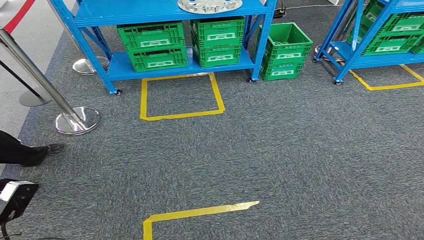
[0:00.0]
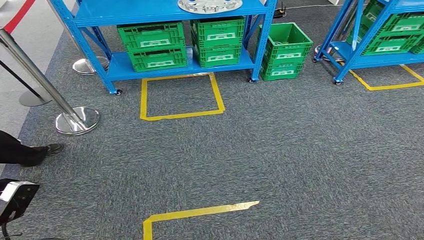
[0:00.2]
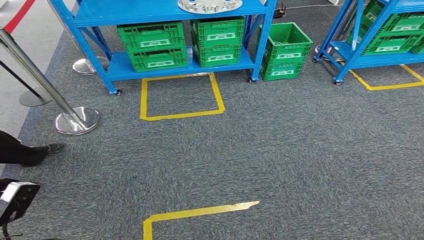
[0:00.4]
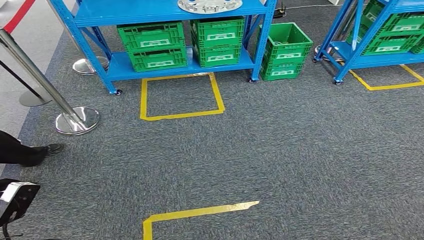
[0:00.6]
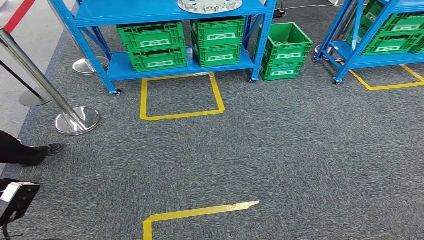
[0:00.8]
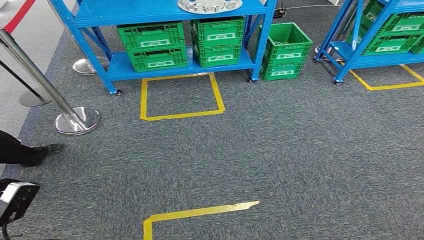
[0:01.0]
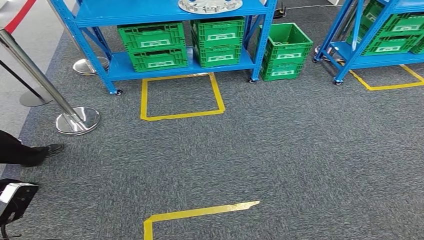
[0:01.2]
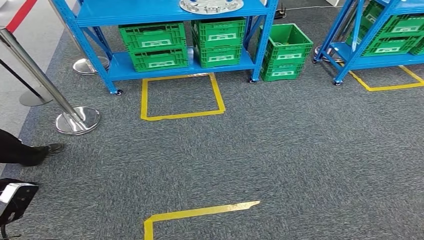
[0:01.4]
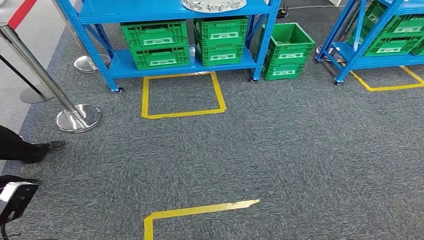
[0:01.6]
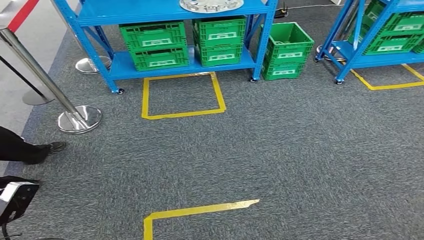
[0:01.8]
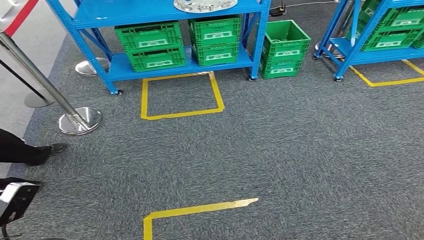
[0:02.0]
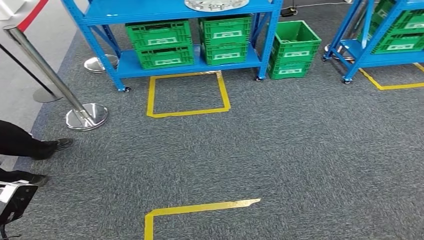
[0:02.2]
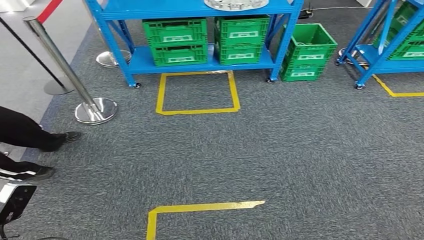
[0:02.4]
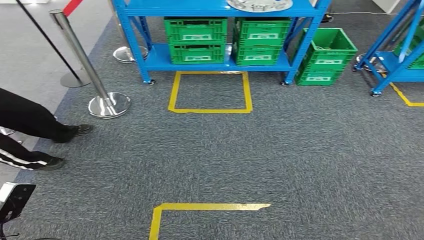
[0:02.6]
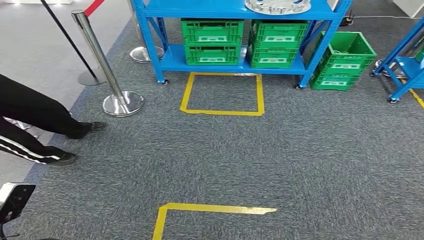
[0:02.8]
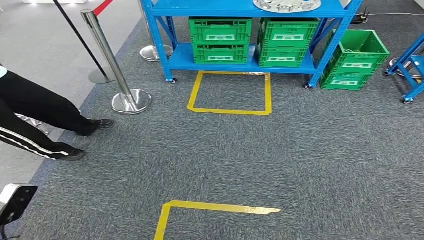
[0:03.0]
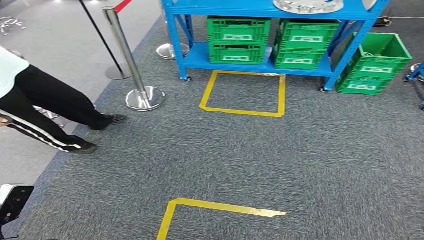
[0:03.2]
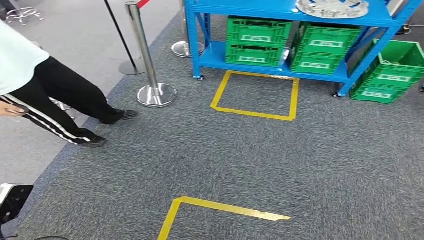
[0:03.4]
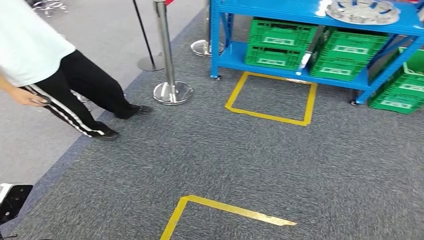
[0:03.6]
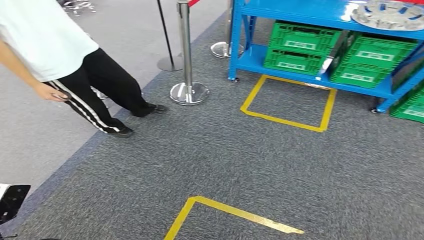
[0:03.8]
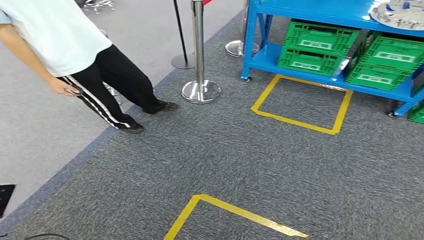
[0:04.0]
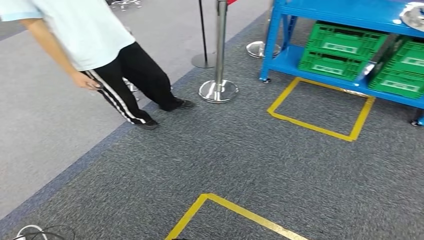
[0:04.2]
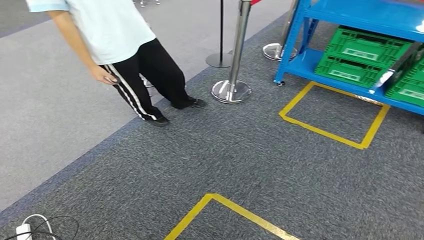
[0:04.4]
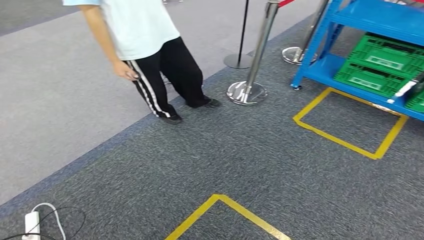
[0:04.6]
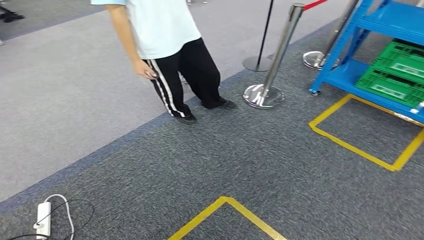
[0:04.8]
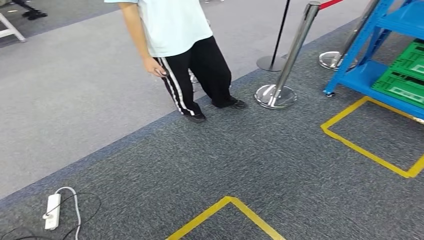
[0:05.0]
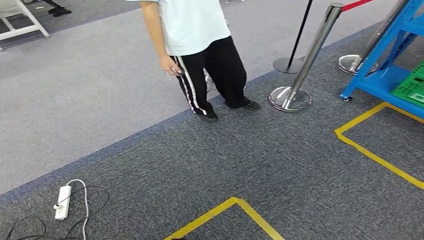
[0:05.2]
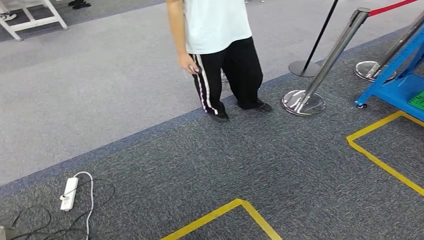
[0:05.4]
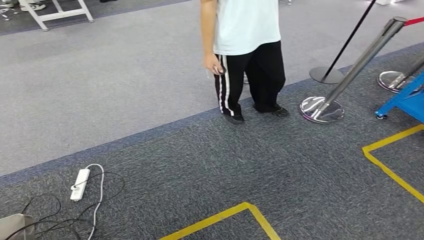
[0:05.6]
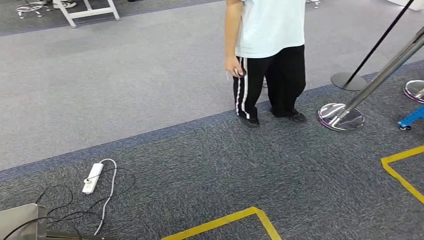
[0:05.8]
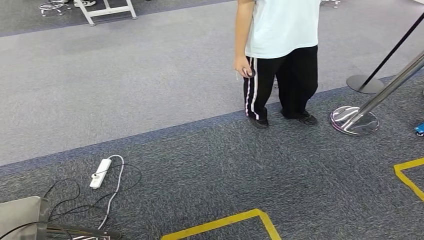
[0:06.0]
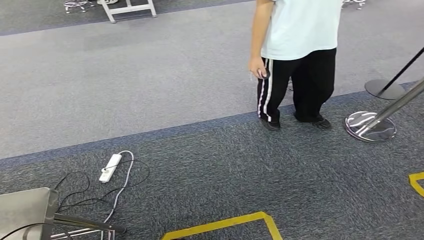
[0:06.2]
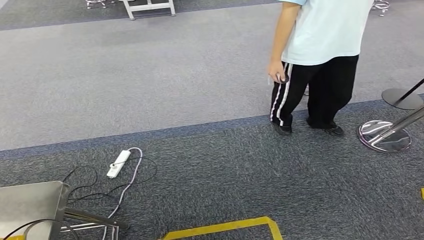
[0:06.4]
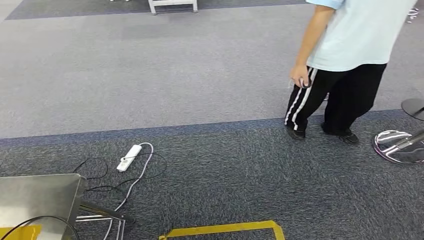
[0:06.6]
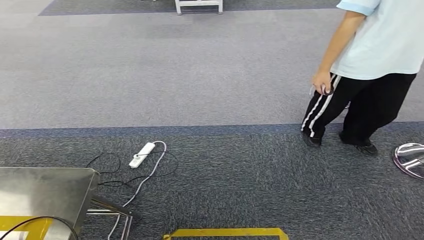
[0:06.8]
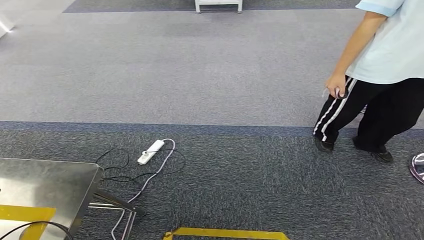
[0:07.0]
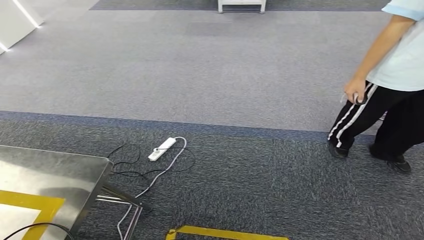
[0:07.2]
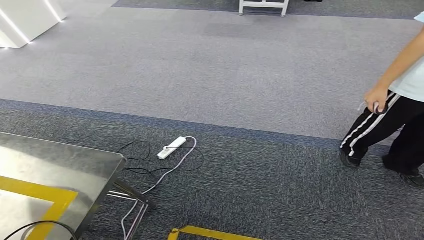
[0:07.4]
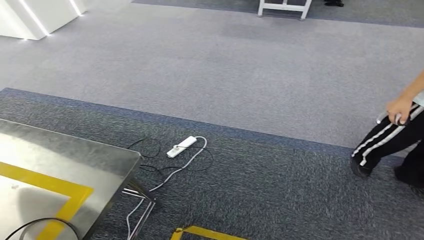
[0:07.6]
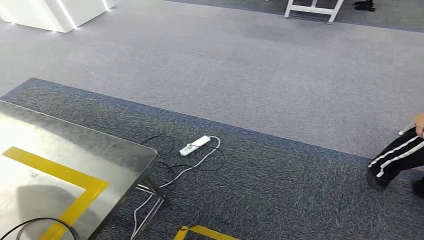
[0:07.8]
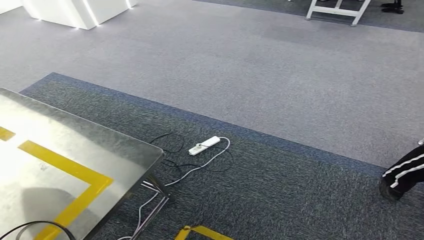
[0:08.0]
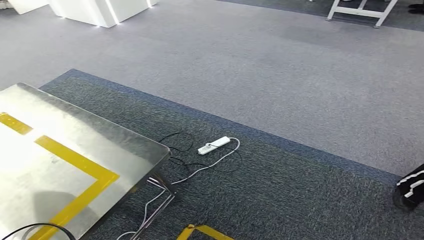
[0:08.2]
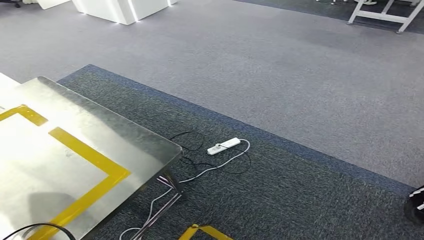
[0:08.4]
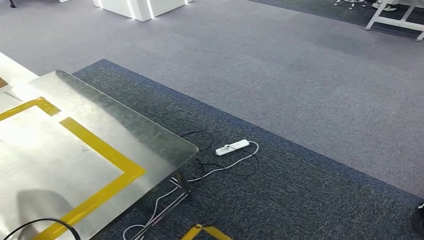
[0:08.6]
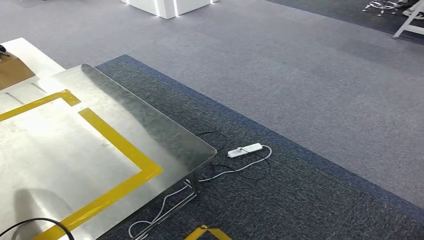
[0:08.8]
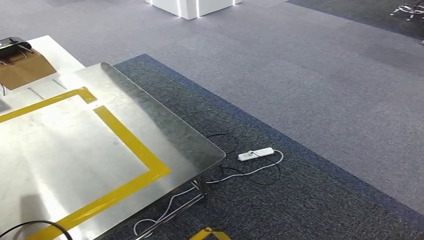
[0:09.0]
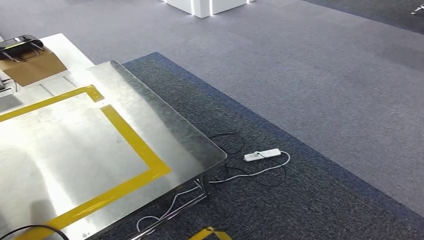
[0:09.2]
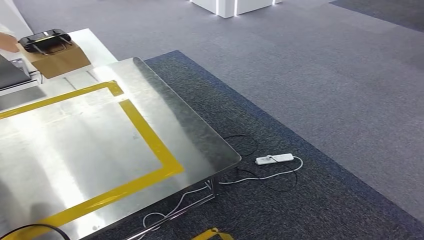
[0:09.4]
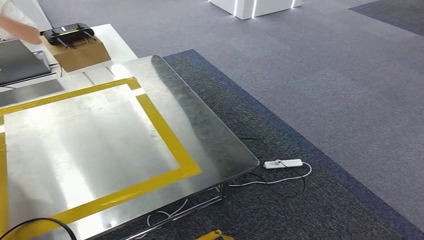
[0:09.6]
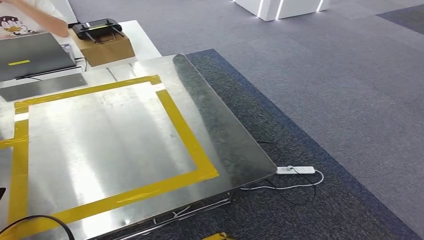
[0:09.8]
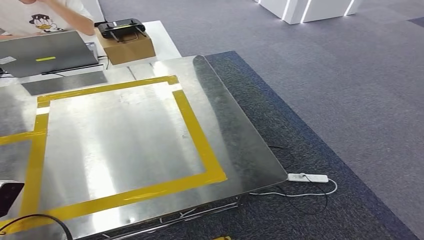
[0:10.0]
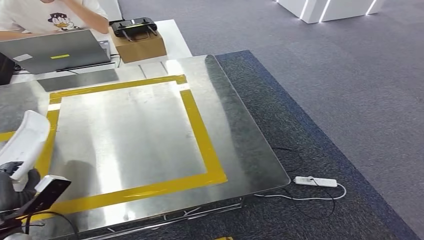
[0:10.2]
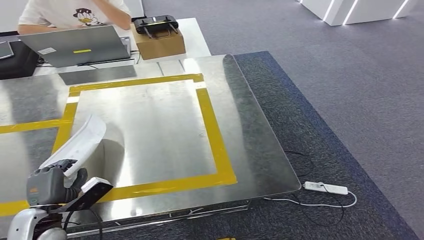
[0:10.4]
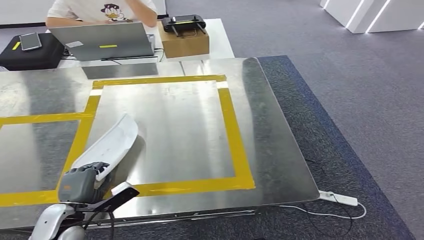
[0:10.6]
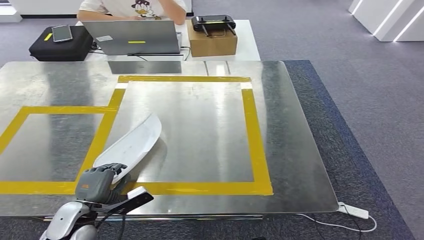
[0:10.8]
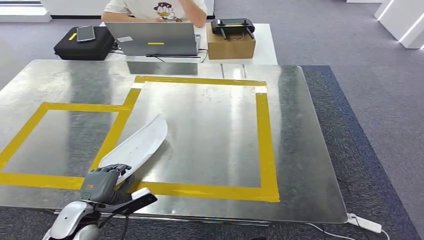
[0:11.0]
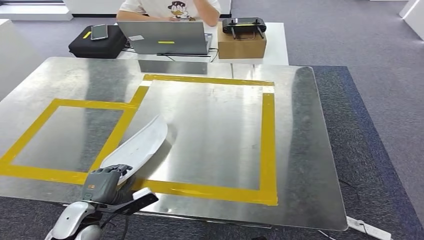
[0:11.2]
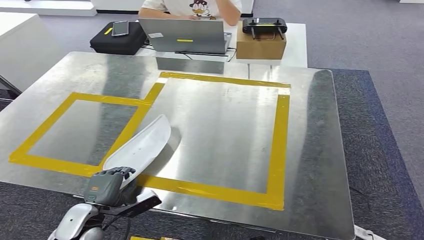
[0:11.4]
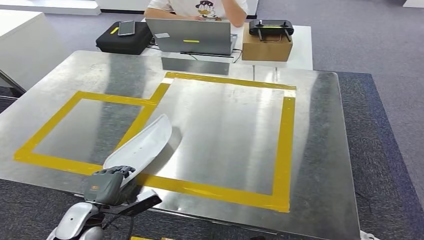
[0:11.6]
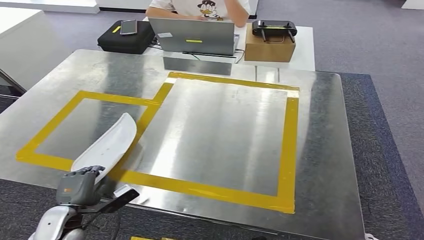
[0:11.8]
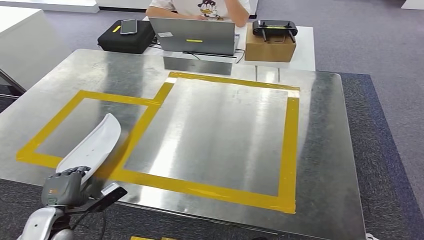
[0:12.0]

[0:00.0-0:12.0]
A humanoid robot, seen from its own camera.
Step, 0:00.0 to 0:11.6: Move the small component to the workbench.
0:00.0 to 0:01.6: Both hands stay about where they are.

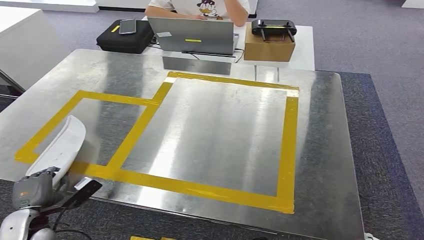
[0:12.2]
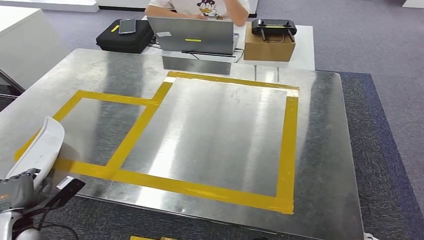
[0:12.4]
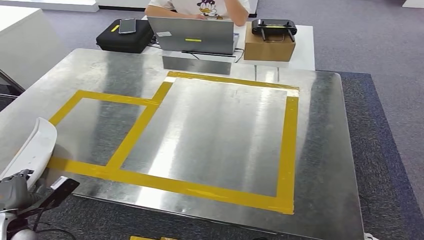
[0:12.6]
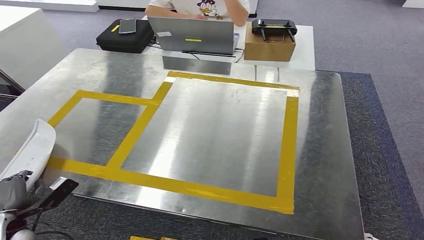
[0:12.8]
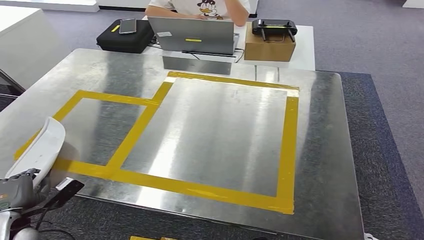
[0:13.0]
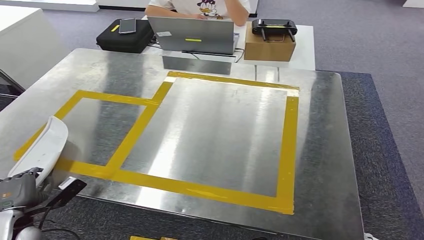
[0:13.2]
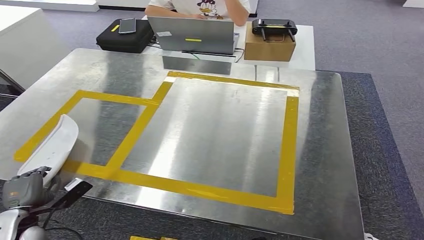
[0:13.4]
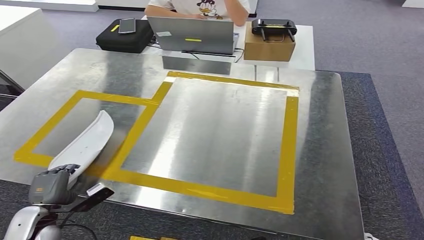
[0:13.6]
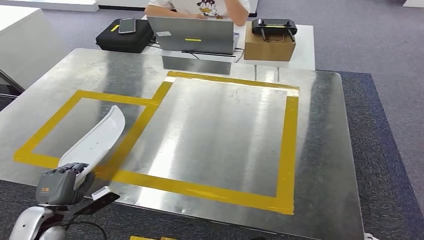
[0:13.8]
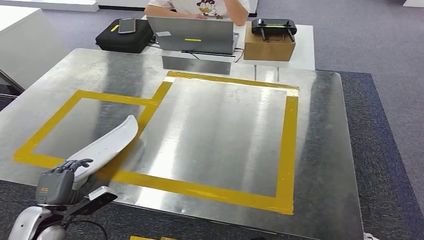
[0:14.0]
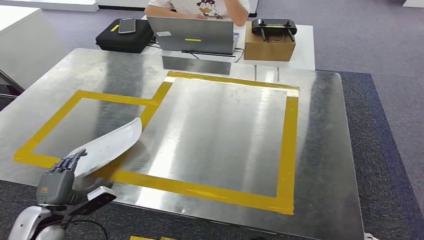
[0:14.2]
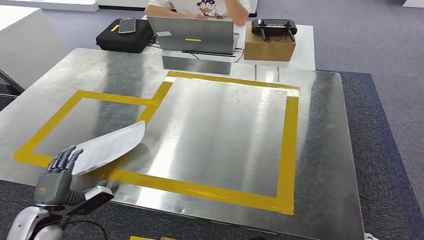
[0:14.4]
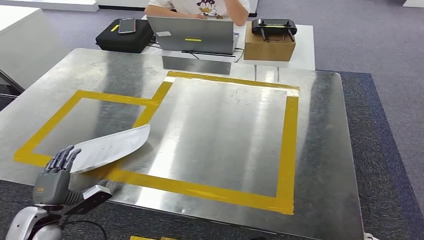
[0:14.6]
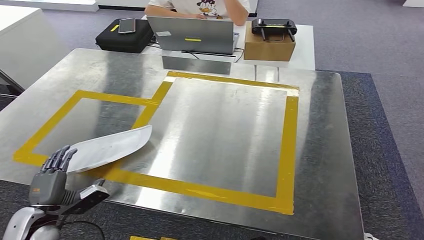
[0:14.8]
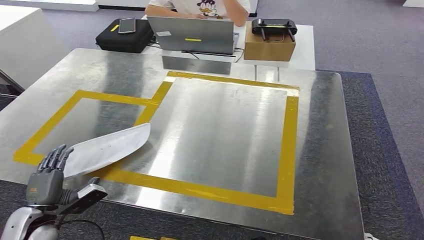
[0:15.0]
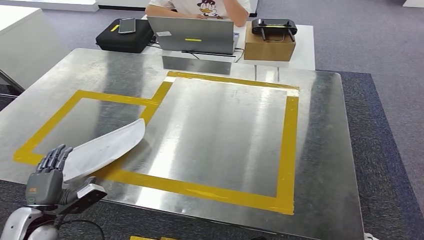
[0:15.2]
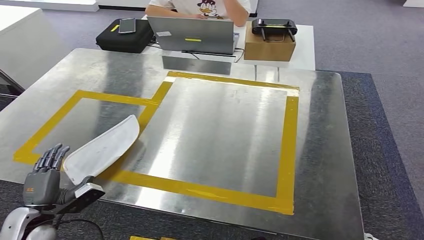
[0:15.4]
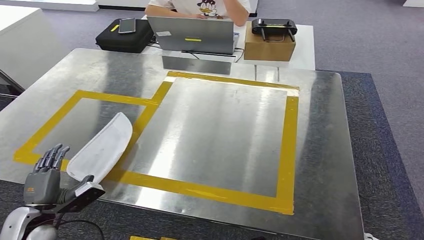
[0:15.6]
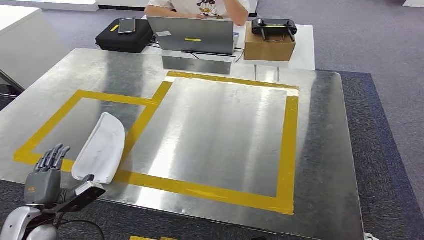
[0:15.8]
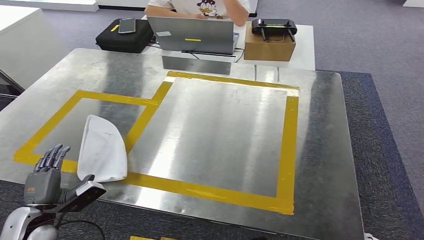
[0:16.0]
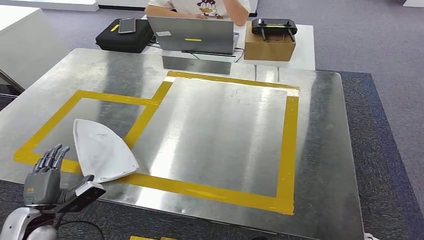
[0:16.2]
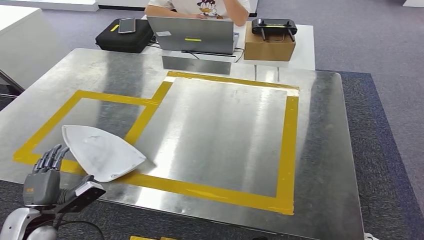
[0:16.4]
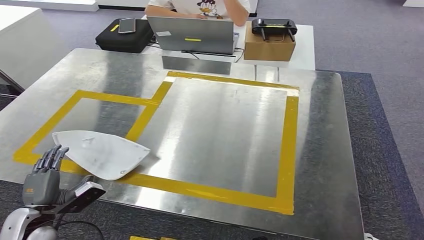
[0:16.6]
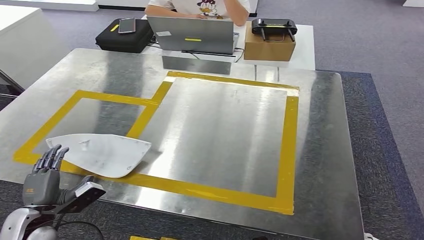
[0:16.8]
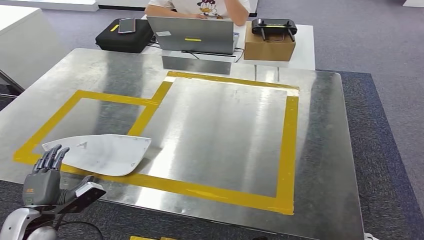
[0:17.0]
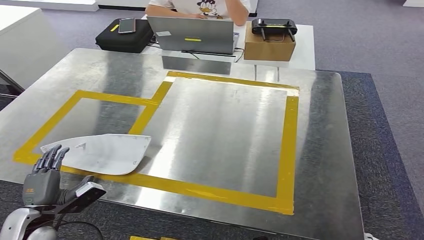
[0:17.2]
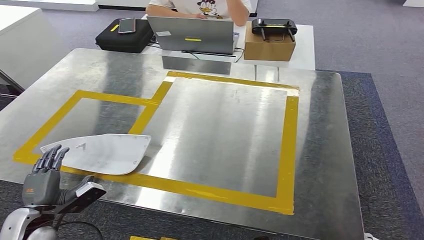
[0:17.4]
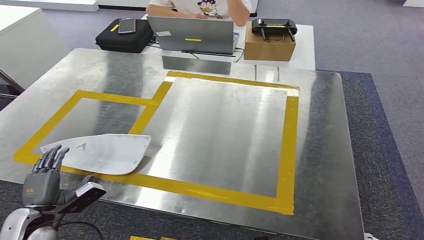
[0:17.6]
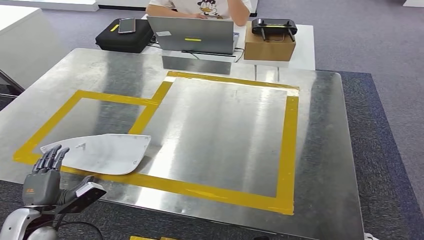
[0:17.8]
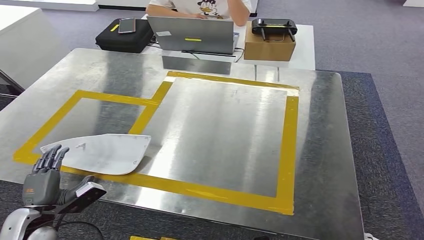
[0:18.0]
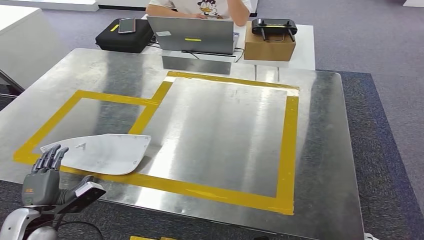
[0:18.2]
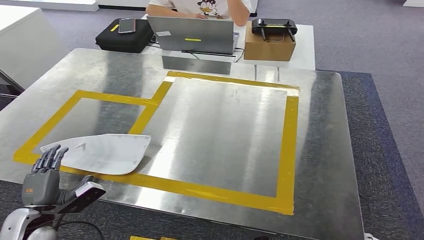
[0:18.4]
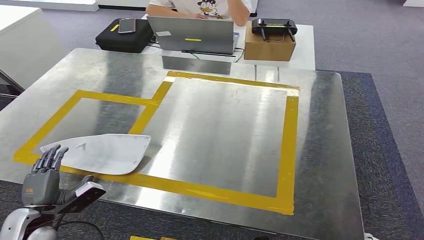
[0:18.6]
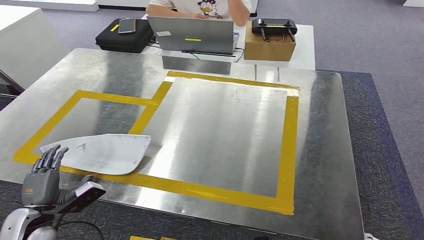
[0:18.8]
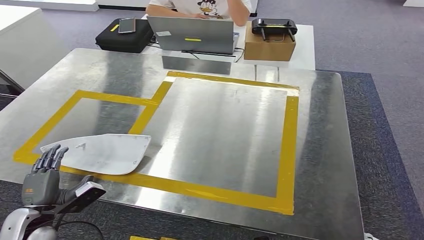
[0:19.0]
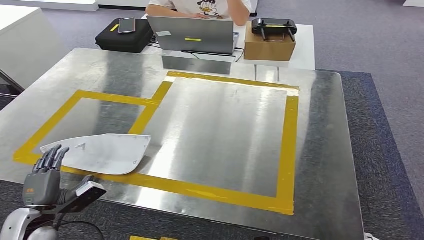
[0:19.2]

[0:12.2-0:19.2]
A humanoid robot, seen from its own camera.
0:12.2 to 0:13.6: The hands stay close to where they were, moving slightly.
0:13.6 to 0:15.0: The hands make only small movements.
0:15.0 to 0:19.2: Both hands stay put.
